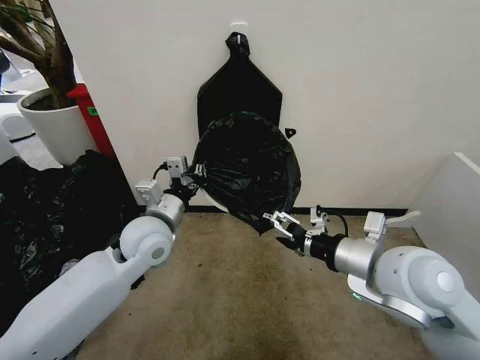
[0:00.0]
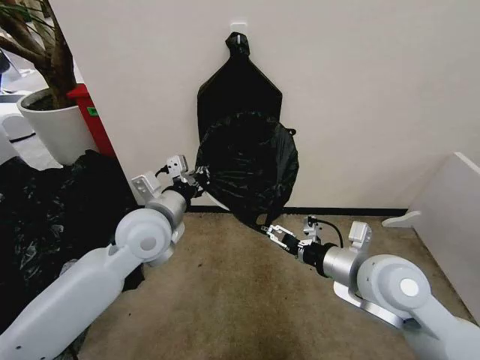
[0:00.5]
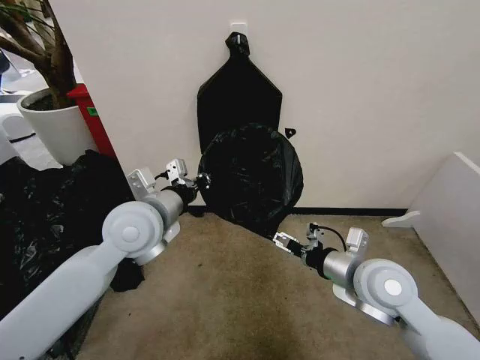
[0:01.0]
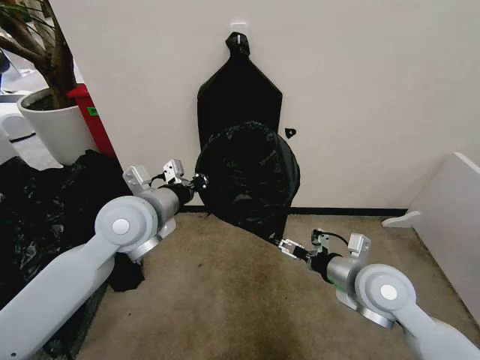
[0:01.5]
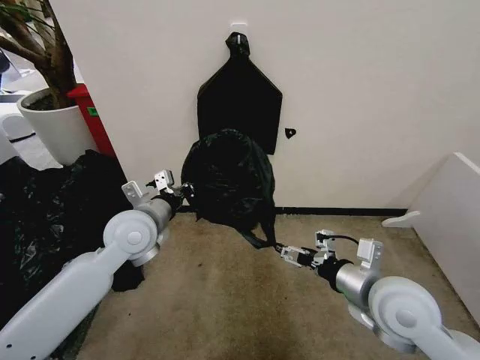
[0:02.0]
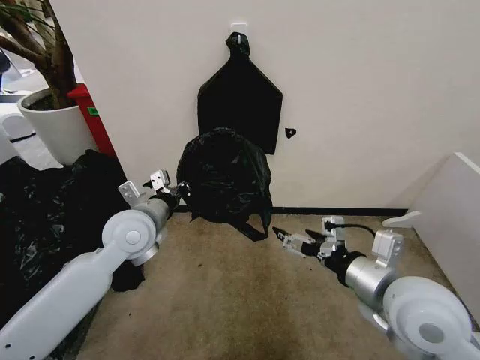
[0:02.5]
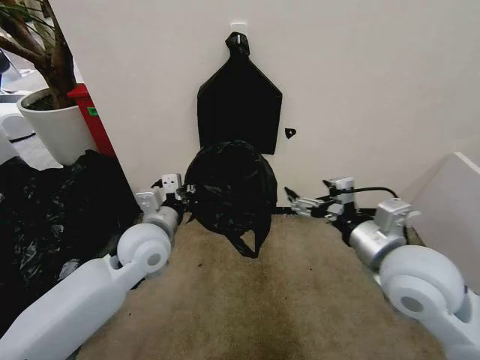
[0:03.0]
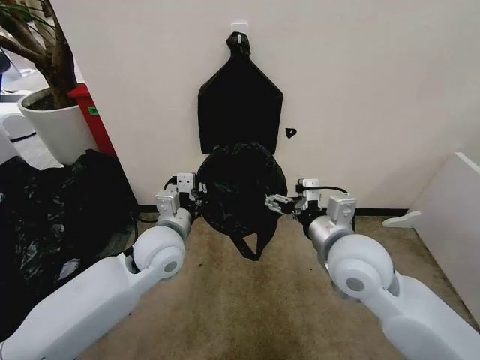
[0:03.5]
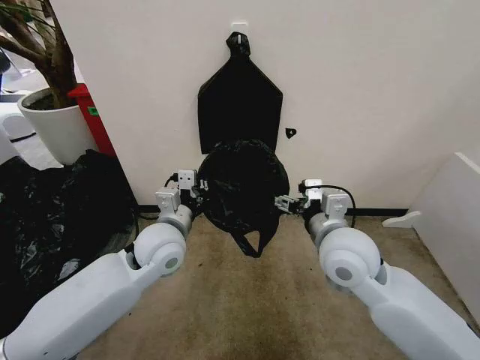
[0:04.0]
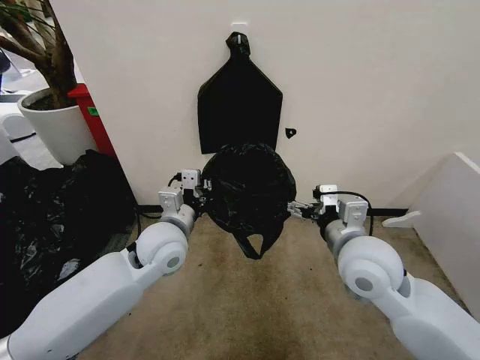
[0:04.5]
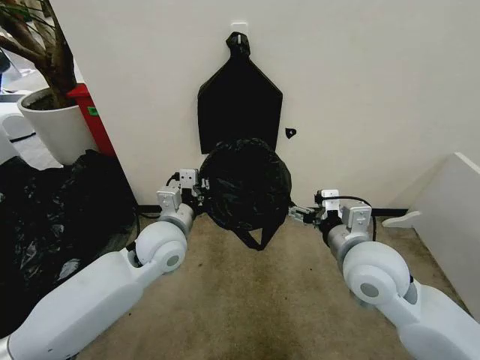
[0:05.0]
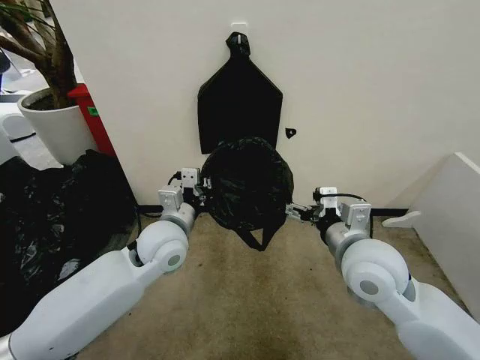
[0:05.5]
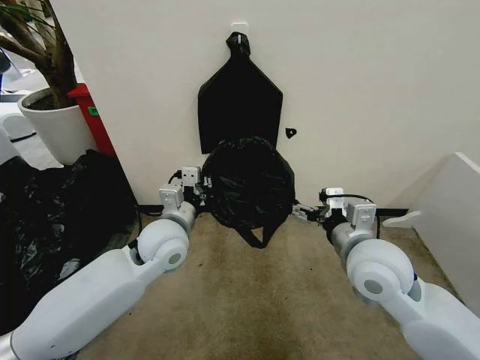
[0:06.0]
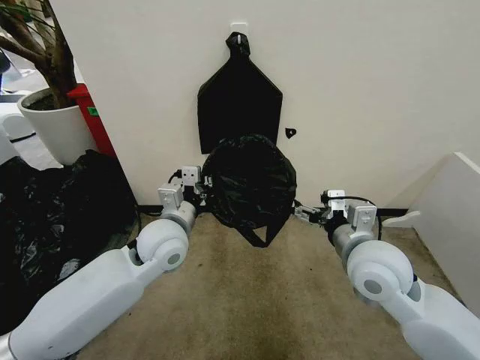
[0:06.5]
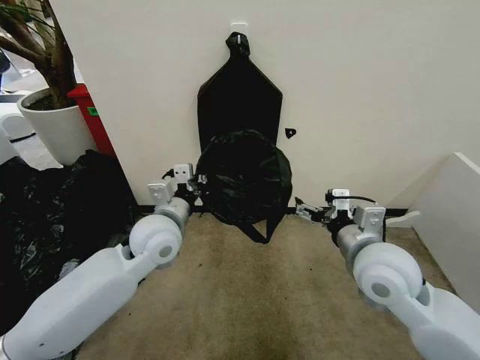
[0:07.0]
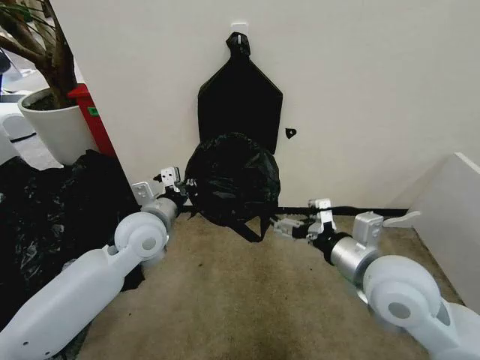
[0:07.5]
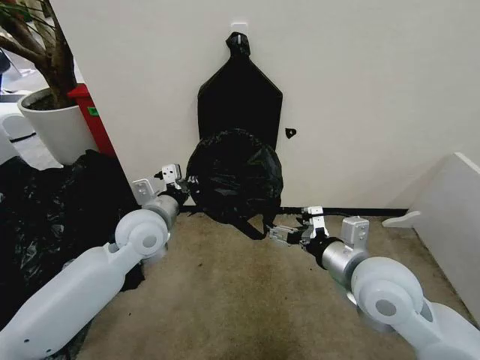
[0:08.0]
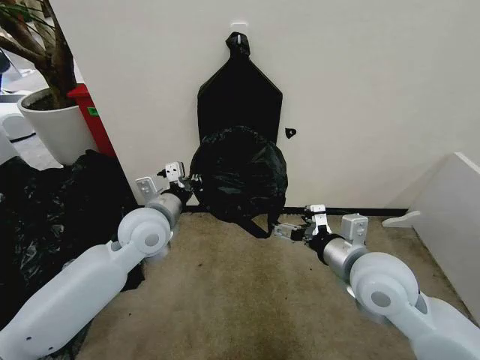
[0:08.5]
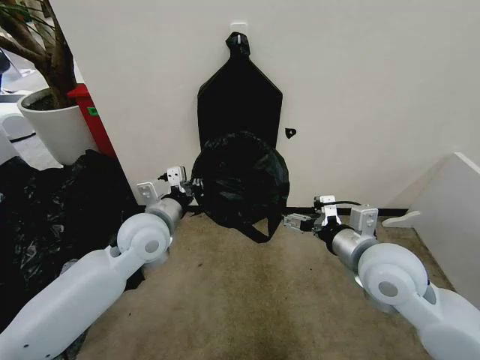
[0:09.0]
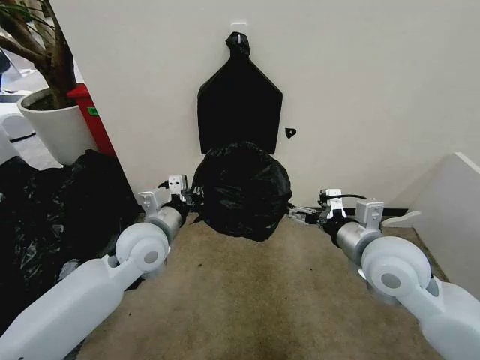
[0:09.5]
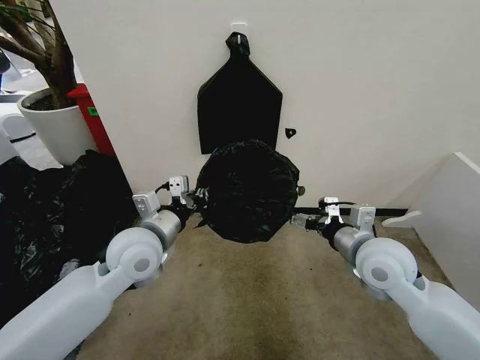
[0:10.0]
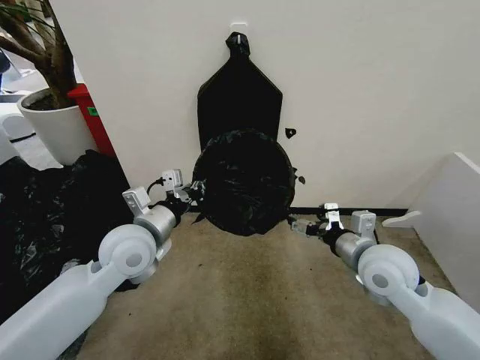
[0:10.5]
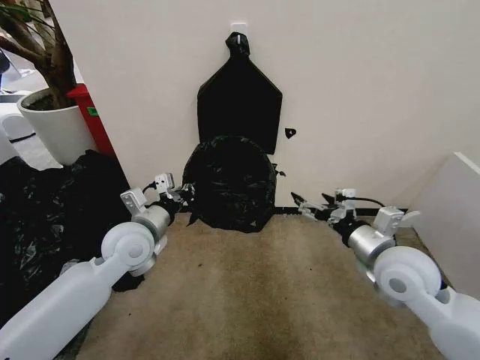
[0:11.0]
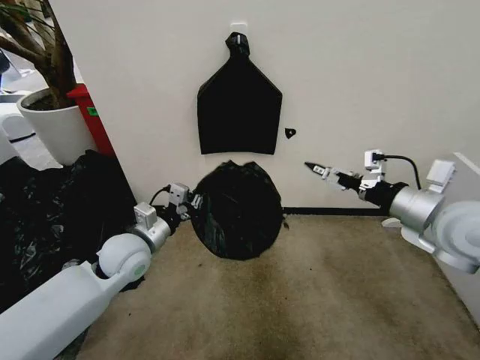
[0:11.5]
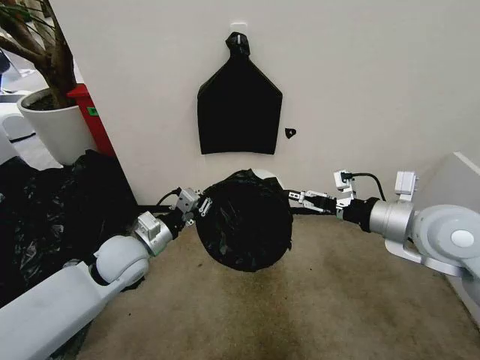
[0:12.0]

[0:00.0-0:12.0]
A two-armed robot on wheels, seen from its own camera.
Task of the whole recording: Place the garbage bag over the trash bin.
0.0 to 2.0 s: The left gripper goes upward and returns, some 10 cm each way. The right gripper is displaced downward by about 10 cm.
2.0 to 4.0 s: The right gripper moves to the left and forward, roughly 10 cm; the left gripper shifts about 5 cm to the right.
4.0 to 6.0 s: The right gripper changes place by approximately 5 cm.
8.0 to 10.0 s: The right gripper travels forward by approximately 5 cm.
10.0 to 12.0 s: The left gripper goes approximately 5 cm downward. Meanwhile the right gripper shifts about 10 cm upward and to the right.

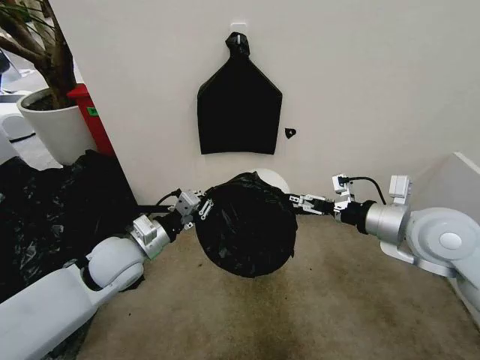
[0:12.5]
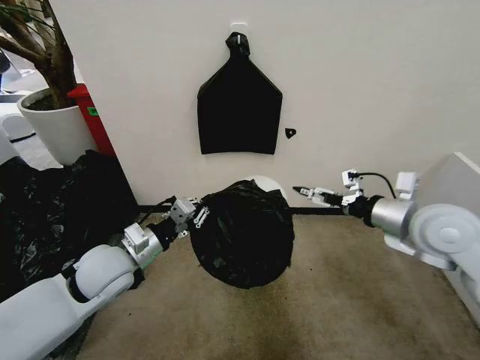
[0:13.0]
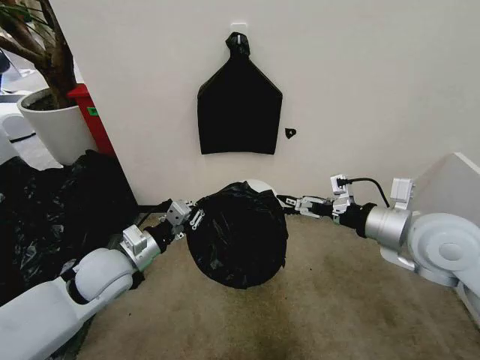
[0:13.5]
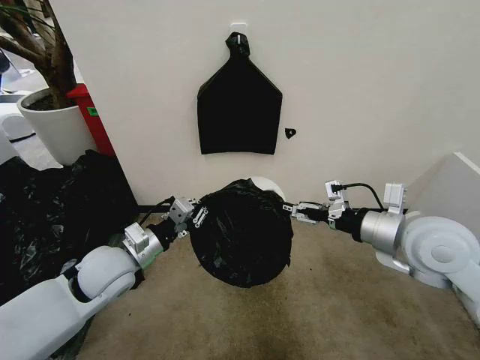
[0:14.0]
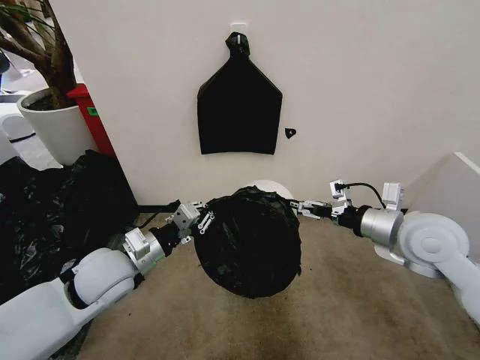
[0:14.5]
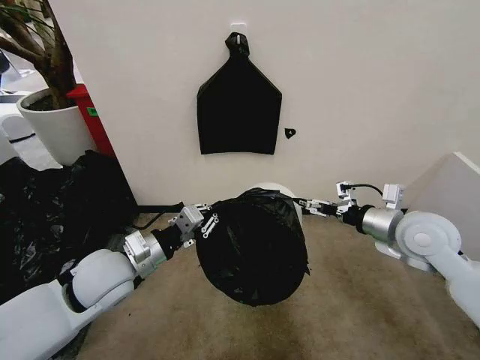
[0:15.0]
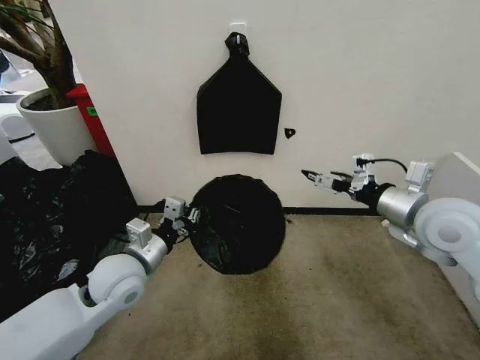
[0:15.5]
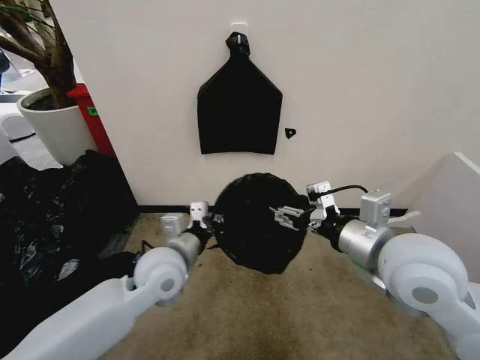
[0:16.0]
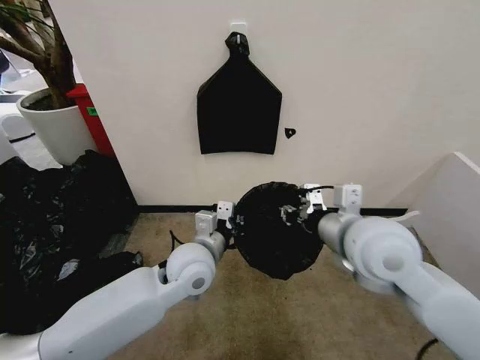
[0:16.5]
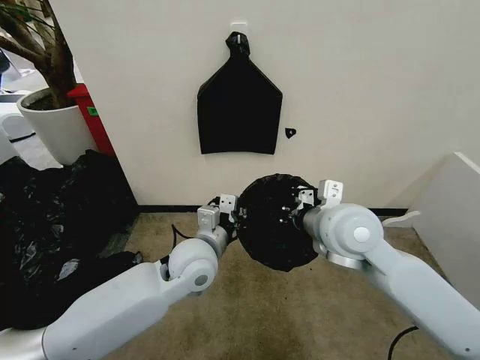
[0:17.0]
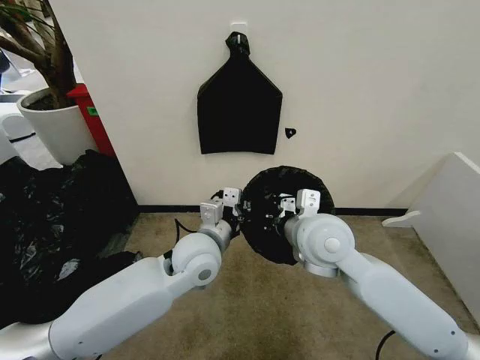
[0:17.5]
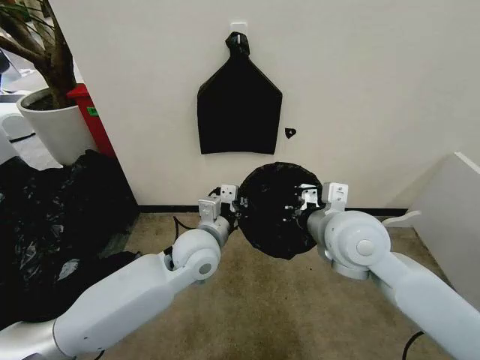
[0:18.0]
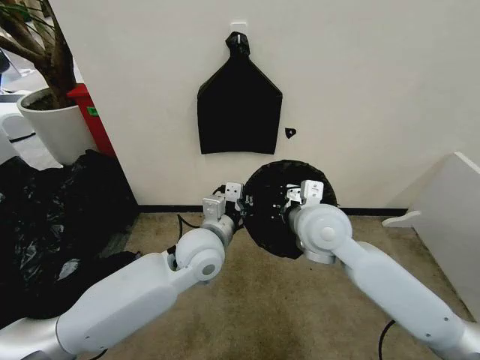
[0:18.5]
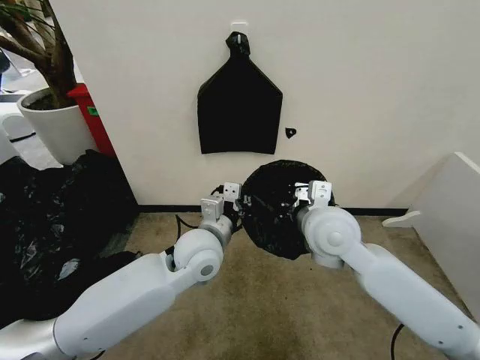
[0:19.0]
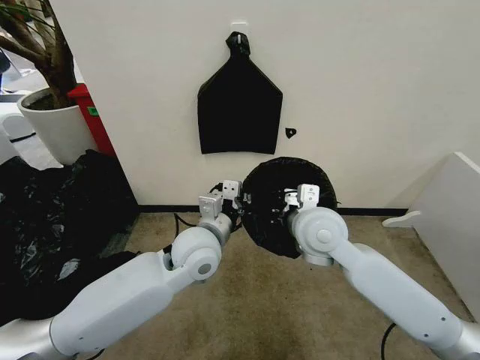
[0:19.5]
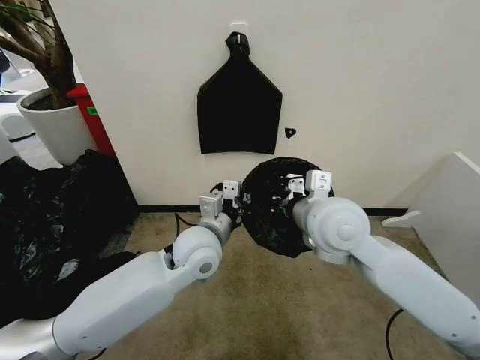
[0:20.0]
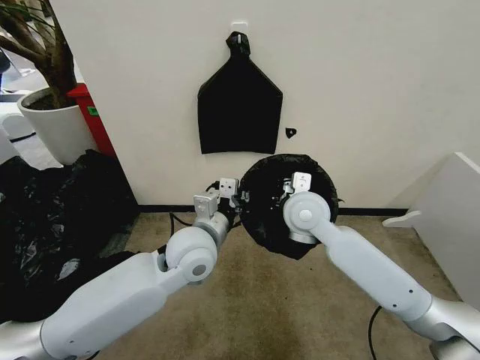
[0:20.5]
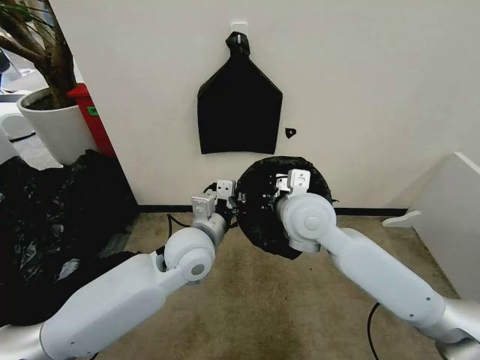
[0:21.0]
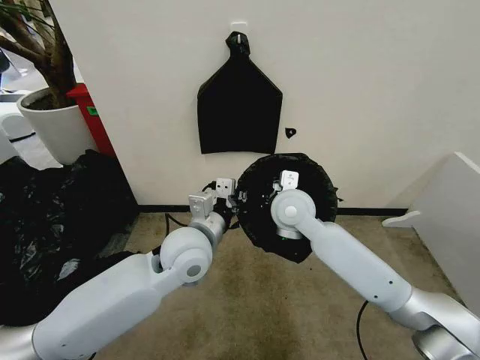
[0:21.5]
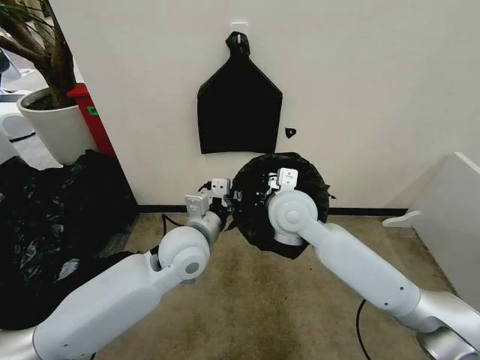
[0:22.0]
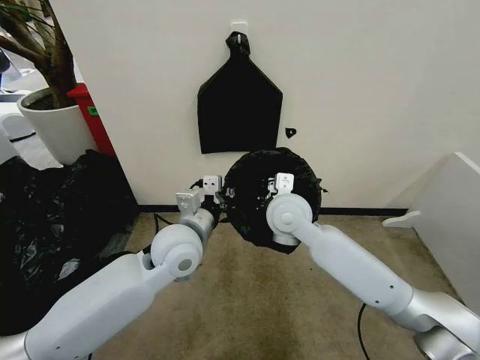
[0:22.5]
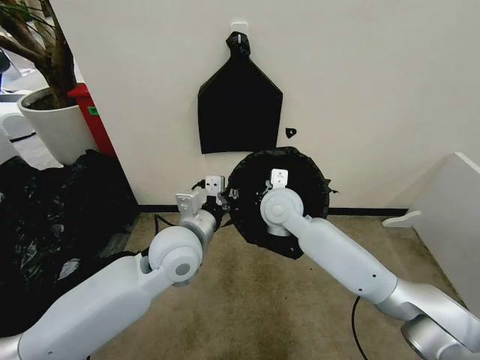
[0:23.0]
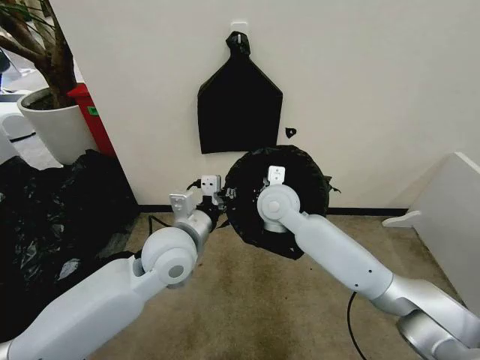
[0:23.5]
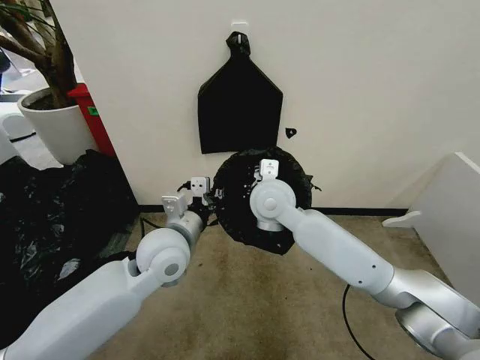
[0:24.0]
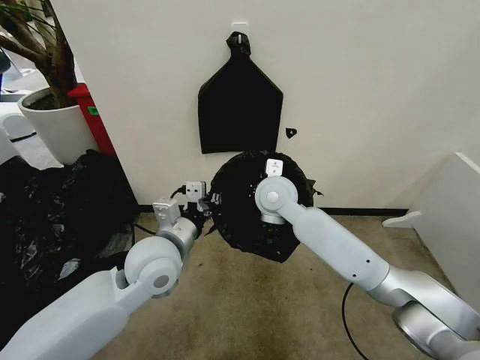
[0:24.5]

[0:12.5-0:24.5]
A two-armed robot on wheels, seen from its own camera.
Task of the whole recording: Place the garbage bag over the trash bin.
12.5 to 14.5 s: The grippers make only small movements.
14.5 to 16.5 s: The right gripper shifts some 10 cm to the left, and closes, while the left gripper travels to the right by about 15 cm.
16.5 to 18.5 s: The right gripper goes approximately 10 cm forward and to the left.
18.5 to 20.5 s: The grippers move only a little.
20.5 to 22.5 s: The grippers move only a little.
22.5 to 24.5 s: The right gripper goes about 5 cm forward.

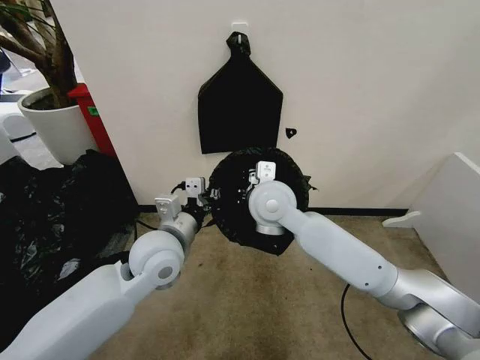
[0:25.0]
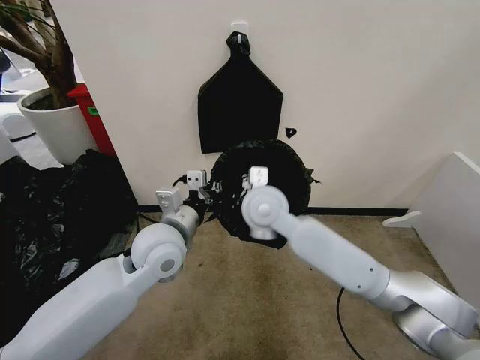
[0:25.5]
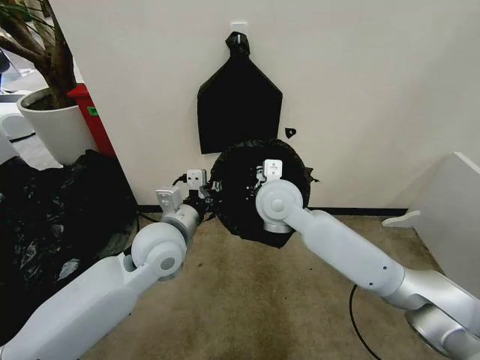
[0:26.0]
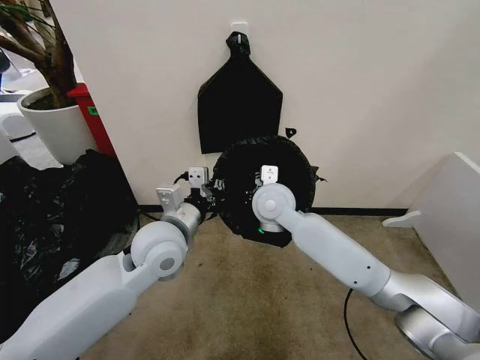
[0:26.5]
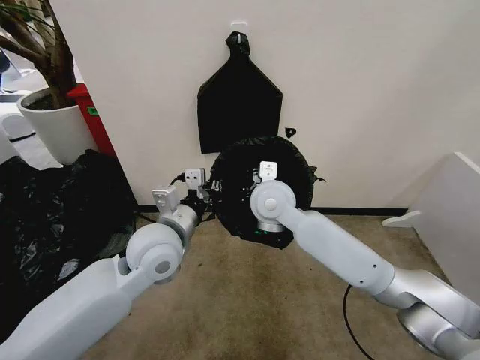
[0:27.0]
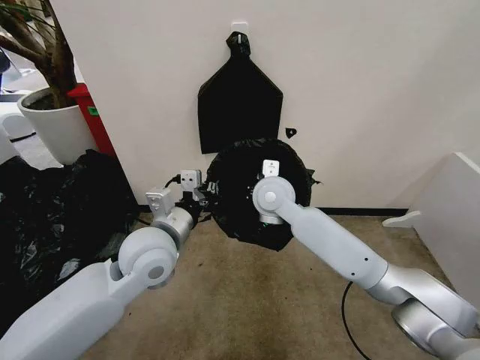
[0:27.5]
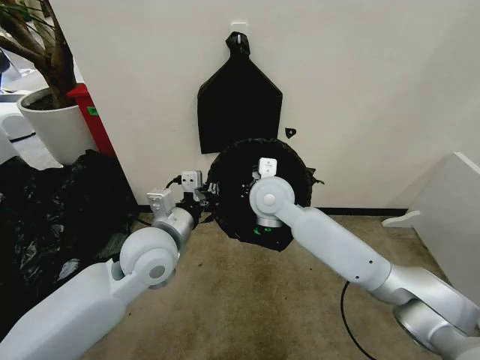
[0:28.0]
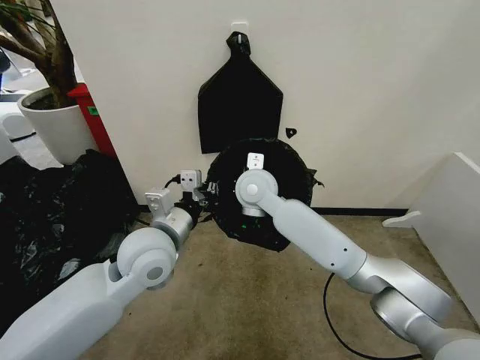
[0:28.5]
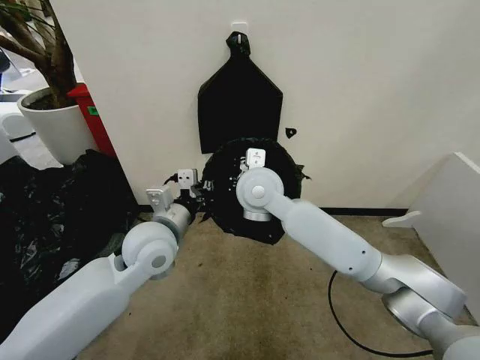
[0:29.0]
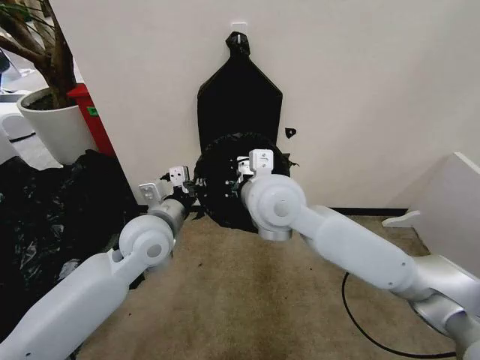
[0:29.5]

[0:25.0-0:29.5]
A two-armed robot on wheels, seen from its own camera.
Task of the whole recording: Place the garbage bag over the trash bin.
25.0 to 27.0 s: The grippers move only a little.
27.0 to 29.5 s: The right gripper heads upward and backward, covering approximately 10 cm.
